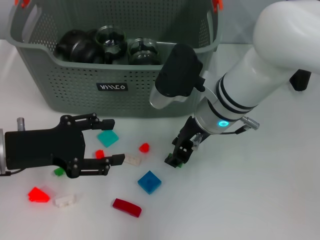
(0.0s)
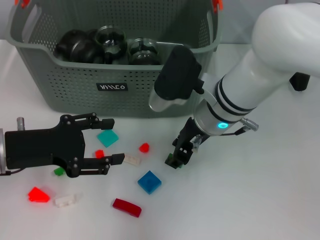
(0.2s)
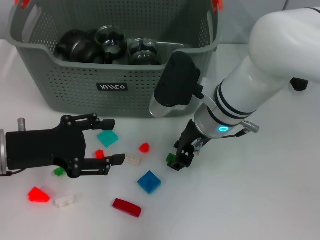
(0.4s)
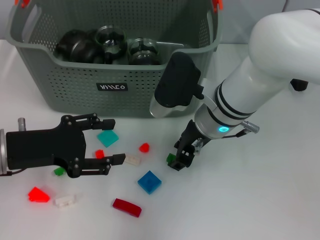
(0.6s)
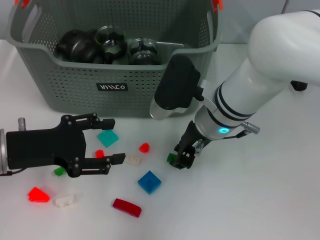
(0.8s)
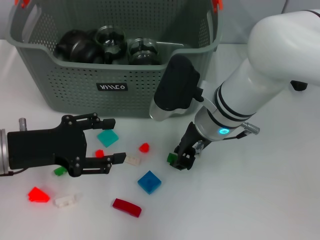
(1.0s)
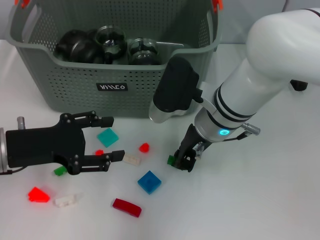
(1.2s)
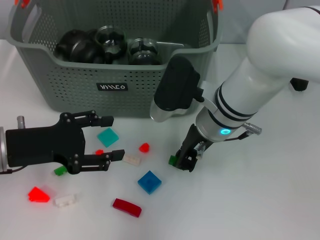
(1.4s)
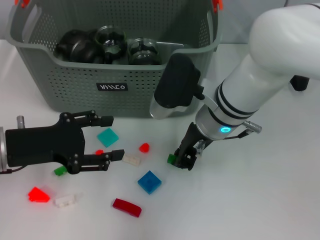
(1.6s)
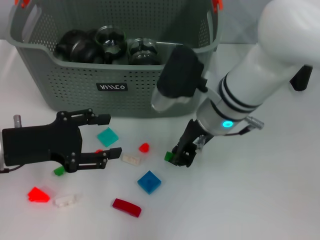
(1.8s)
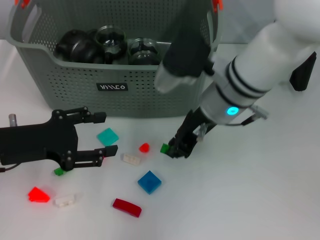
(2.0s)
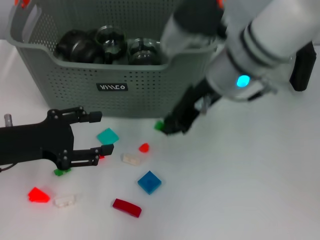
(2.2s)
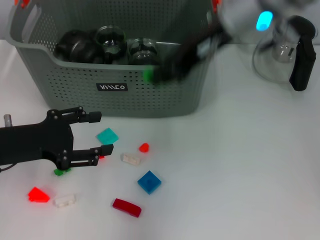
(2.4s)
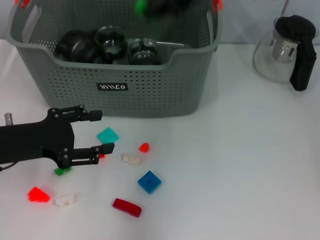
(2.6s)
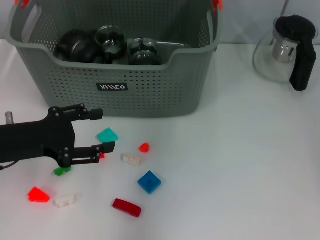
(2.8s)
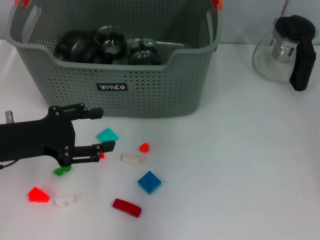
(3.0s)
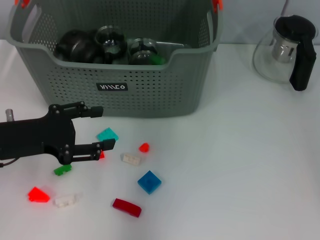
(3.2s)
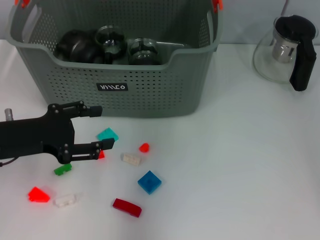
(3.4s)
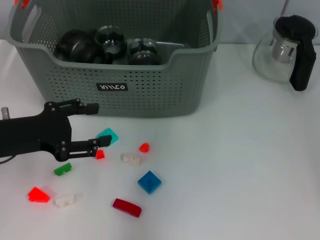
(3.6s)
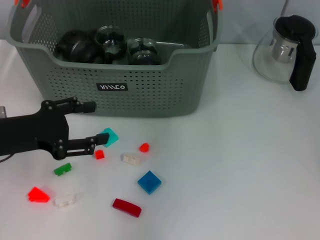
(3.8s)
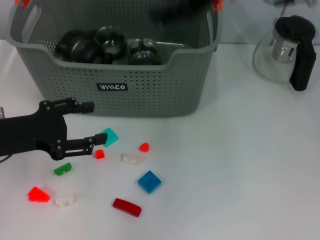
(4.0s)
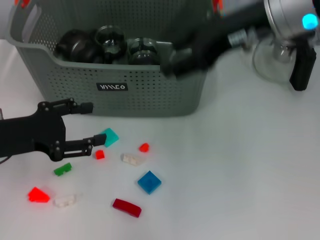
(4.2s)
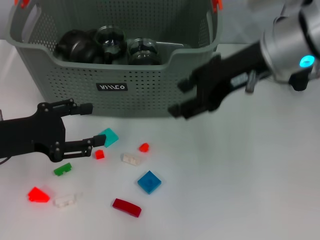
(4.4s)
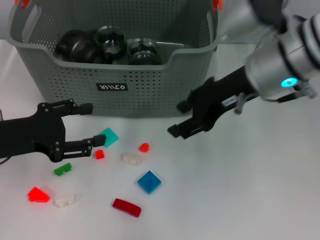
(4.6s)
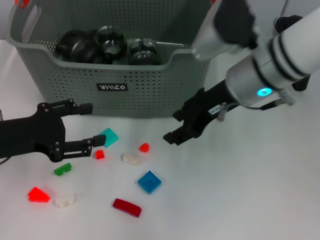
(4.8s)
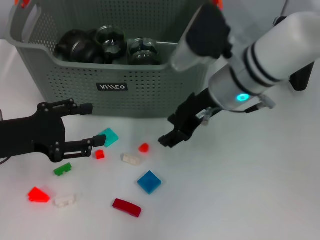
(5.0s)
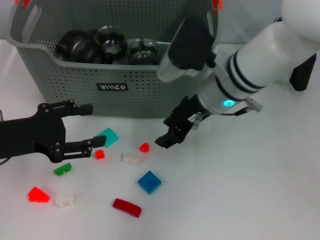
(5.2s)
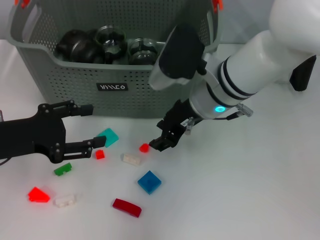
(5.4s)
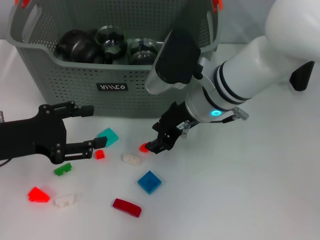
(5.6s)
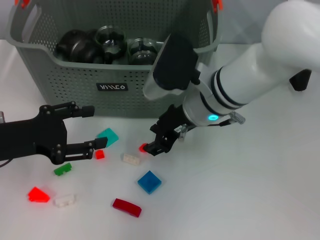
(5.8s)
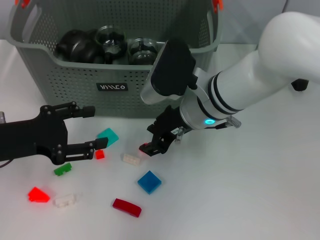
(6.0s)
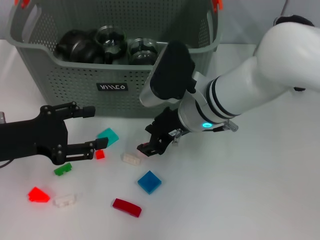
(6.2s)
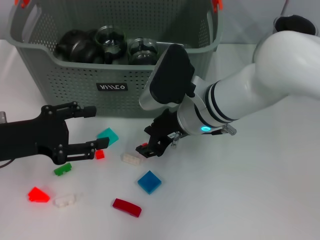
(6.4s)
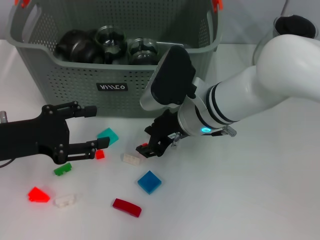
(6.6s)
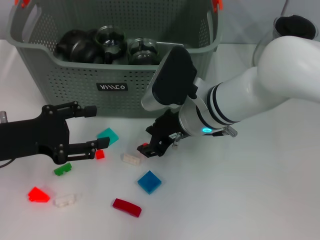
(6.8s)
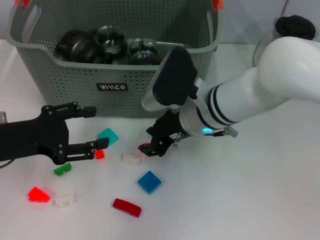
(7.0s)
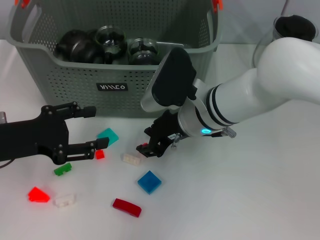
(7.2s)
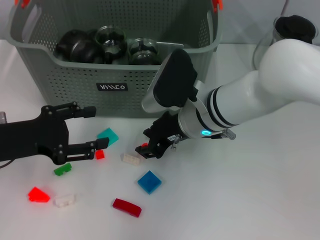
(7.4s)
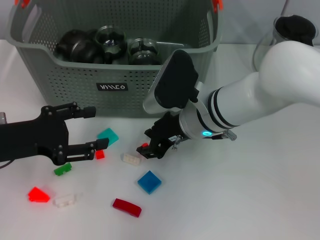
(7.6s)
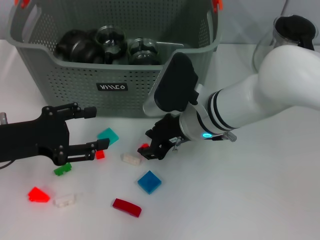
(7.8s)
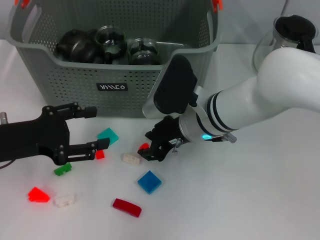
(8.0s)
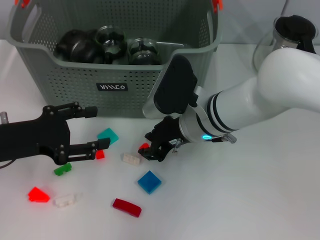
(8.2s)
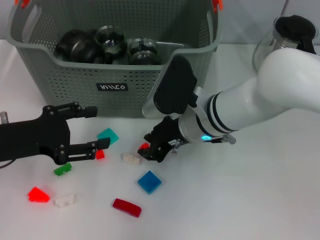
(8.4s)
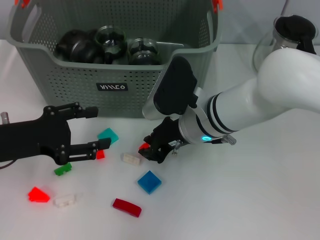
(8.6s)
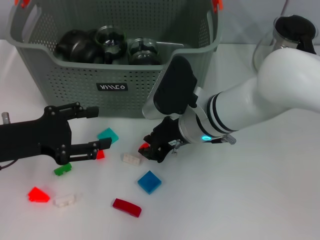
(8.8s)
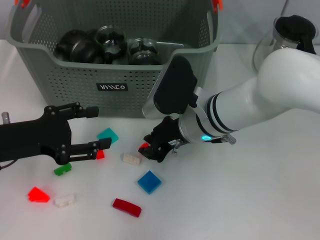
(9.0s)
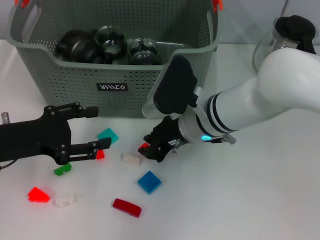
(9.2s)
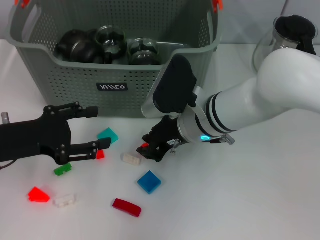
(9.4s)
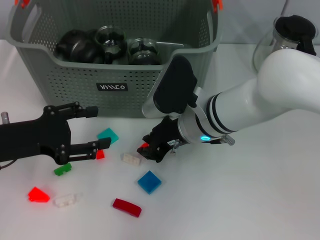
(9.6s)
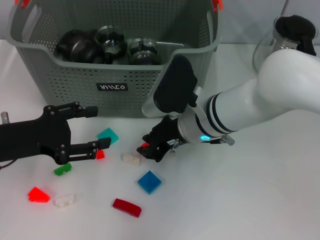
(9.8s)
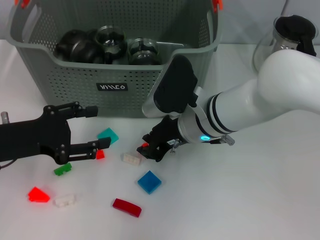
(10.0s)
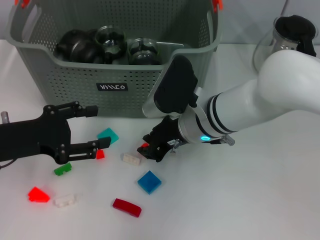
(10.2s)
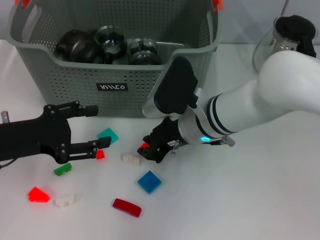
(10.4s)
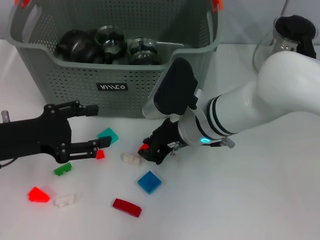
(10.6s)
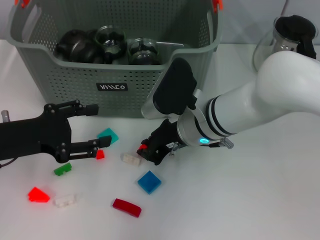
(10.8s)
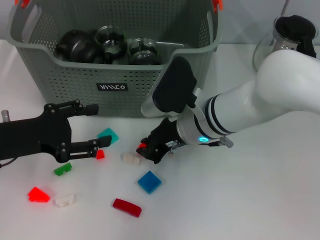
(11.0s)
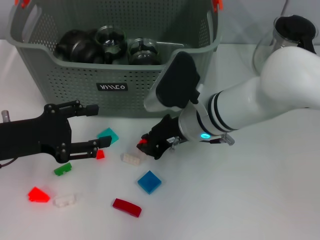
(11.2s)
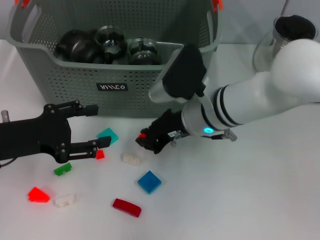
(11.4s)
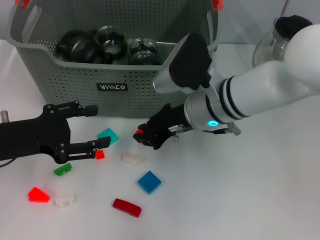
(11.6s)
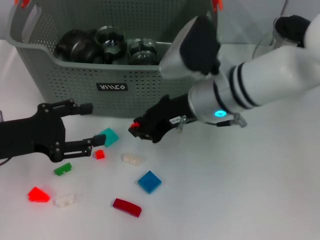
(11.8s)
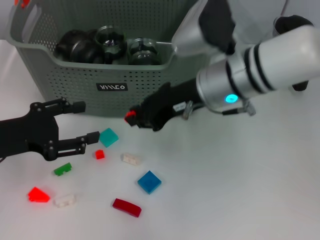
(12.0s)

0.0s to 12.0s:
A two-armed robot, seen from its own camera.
Task of the whole recording: pick up the teacup on the table and place it into the storage bin, pick up the block on the table and place it into the storage bin.
Step, 1.4s to 3.8s: Place the green block in the storage box with right gripper.
Step, 4.0s to 10.8s: Grasp the orange block with right gripper.
0.0s to 1.6s: The right gripper closes.
1.6s to 3.0s: The right gripper goes approximately 20 cm upward and forward.
3.0s to 4.4s: The right gripper travels backward and downward by roughly 10 cm, and opens its fingers.
4.4s to 6.0s: The right gripper shifts roughly 15 cm downward and to the left.
6.0s to 7.6s: The grippers stay close to where they were, moving slightly.
7.6s to 10.4s: The two grippers keep their place.
10.4s to 12.0s: The right gripper goes approximately 10 cm upward.

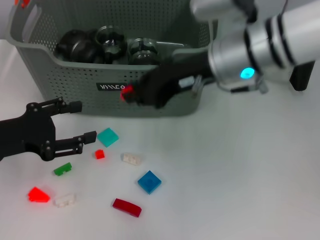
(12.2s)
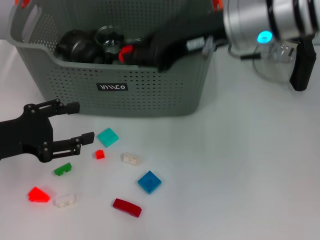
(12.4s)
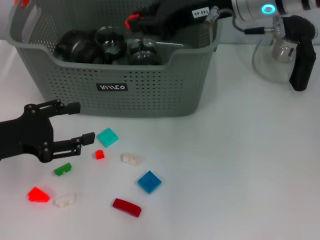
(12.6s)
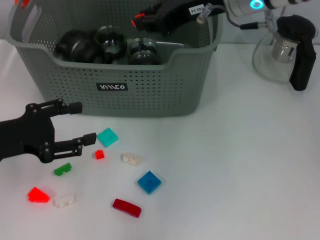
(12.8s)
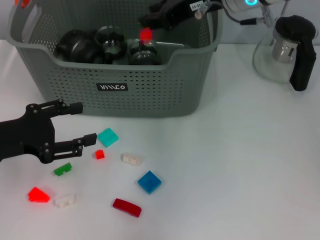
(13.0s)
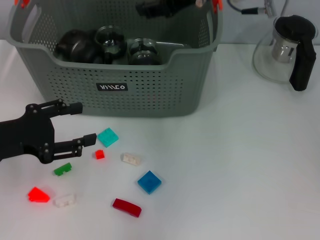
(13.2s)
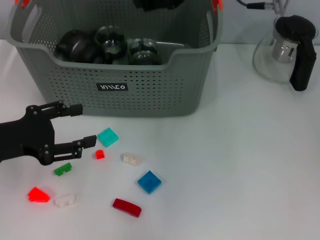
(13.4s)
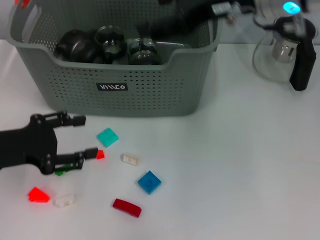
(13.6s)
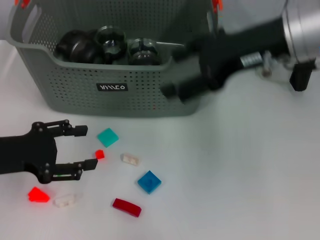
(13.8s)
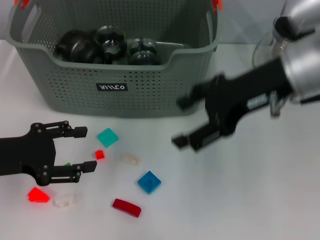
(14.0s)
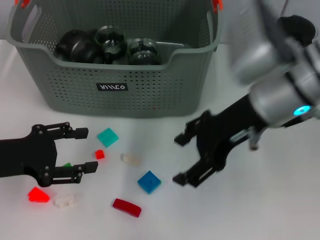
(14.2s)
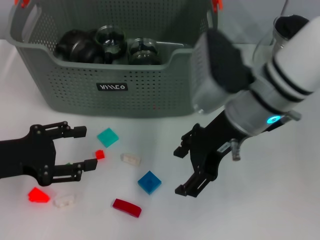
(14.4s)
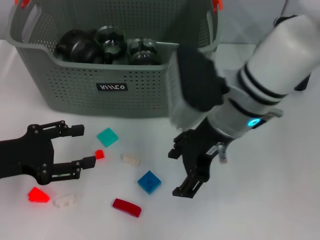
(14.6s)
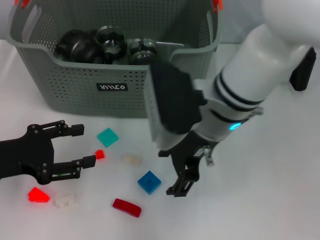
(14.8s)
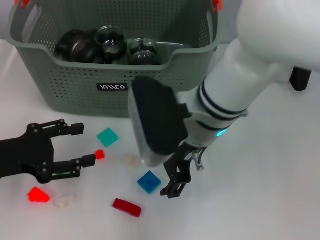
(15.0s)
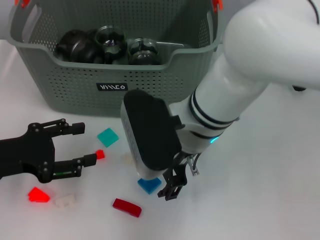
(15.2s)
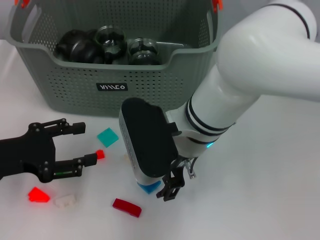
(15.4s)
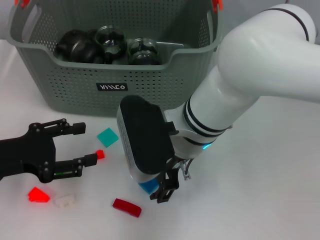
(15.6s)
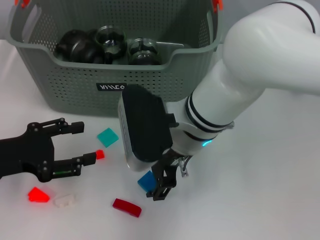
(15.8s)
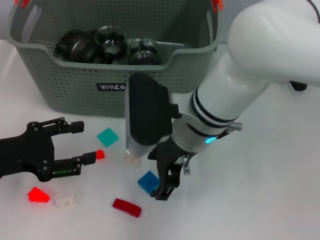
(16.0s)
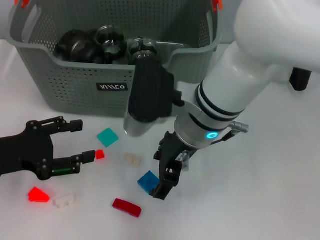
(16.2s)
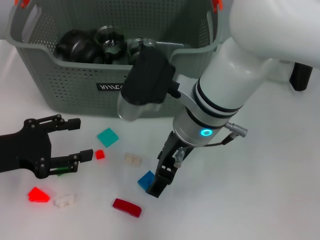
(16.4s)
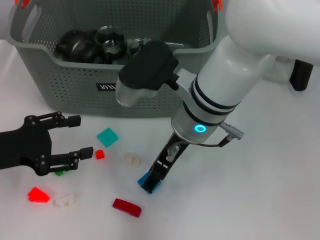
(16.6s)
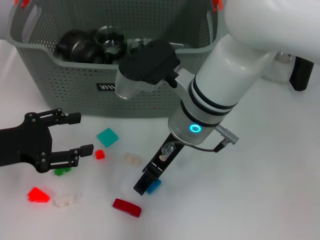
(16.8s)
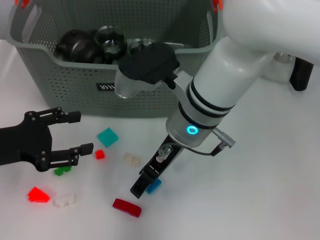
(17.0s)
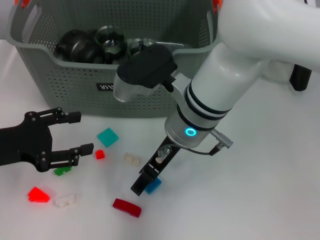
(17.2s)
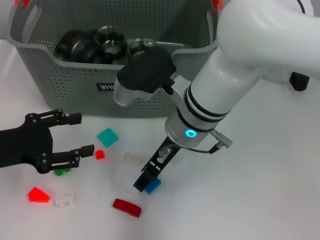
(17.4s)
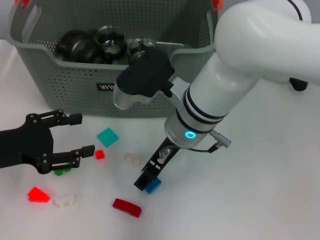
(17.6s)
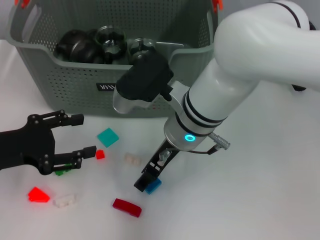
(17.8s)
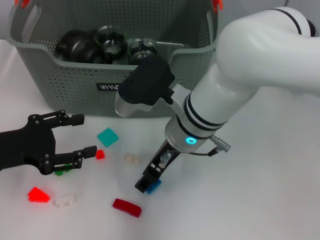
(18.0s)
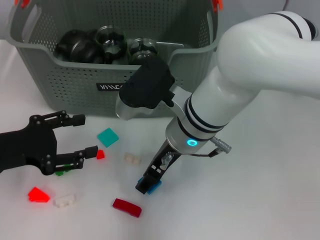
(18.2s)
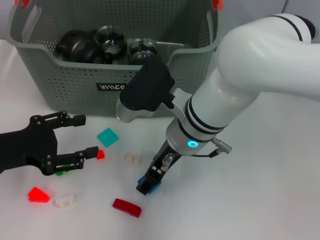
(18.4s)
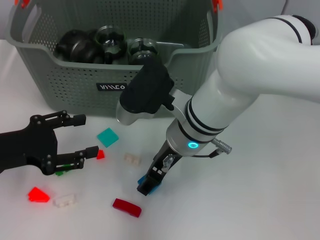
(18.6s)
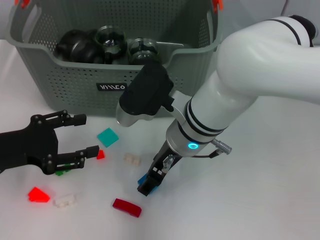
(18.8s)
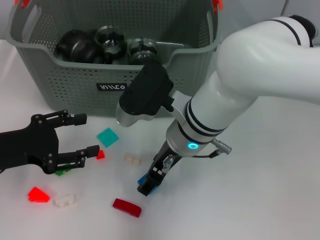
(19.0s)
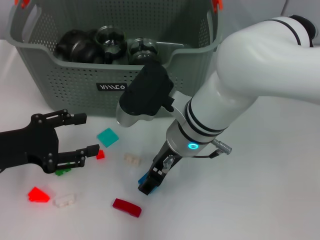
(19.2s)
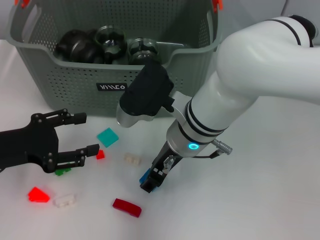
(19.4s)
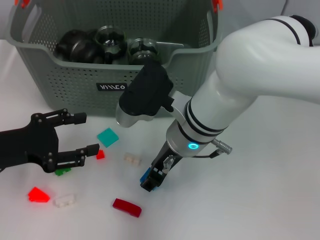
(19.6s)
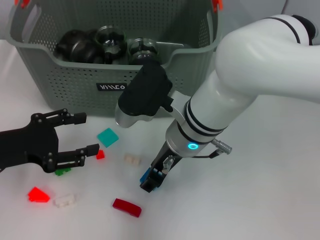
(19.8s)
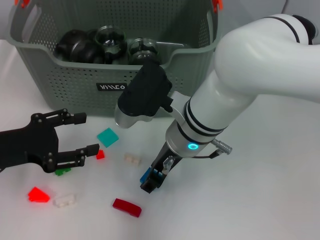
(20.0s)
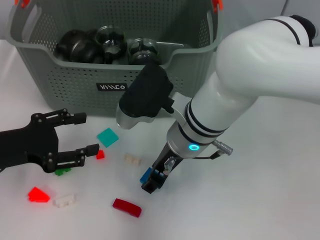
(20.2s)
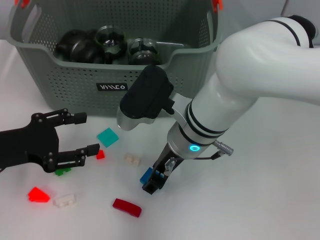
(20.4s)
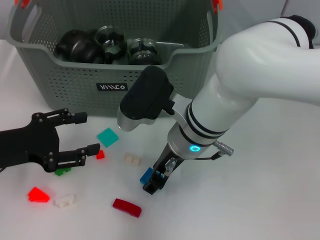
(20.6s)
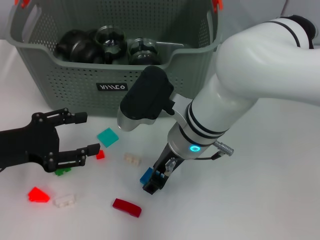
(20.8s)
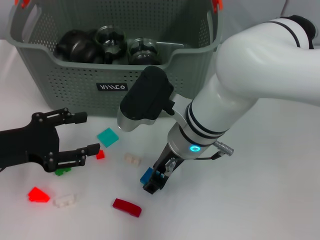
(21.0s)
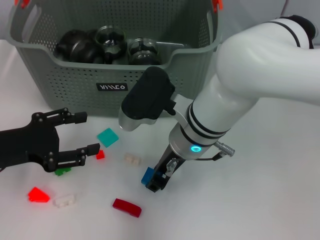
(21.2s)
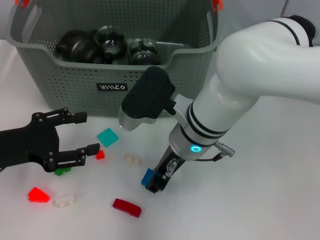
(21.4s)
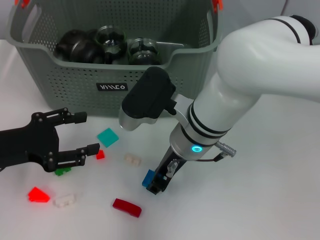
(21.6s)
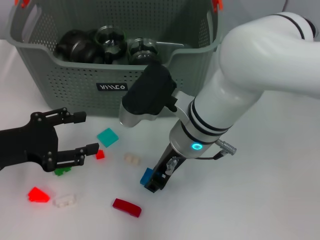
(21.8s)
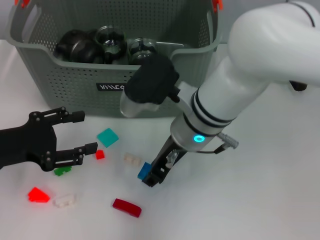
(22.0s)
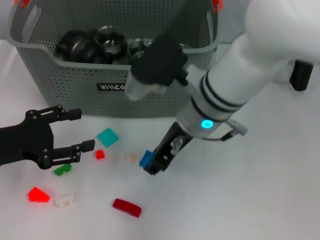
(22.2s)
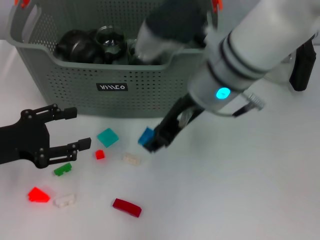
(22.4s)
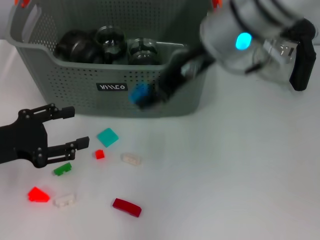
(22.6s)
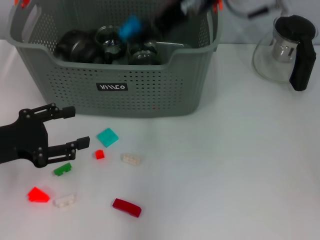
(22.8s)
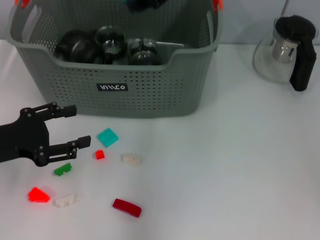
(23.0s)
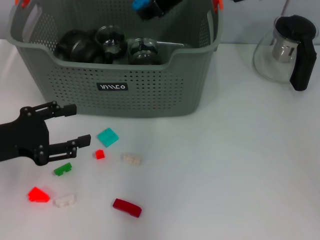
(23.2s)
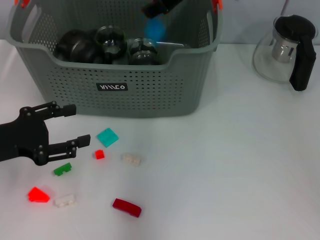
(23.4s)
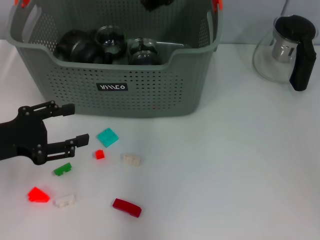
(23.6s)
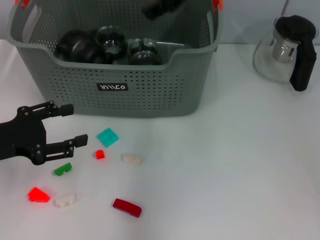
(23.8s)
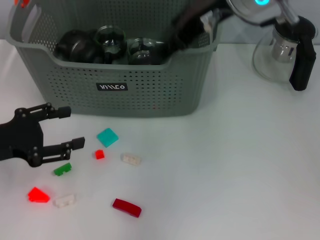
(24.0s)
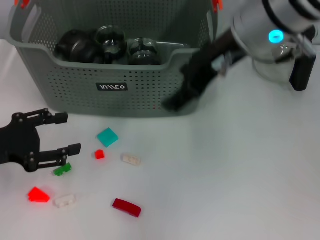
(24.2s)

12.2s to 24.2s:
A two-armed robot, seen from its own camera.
Task of the whole recording: pick up the teacup on the table and place it into the storage bin, pick up the block on the table and place it into the storage bin.
Step, 12.2s to 13.4s: Place the orange block in the storage box with right gripper.
Step, 13.6s to 21.4s: Grasp the dark blue block with right gripper.
Step, 21.6s to 23.8s: Place the dark blue block in the storage box with right gripper.
12.2s to 13.8s: The right gripper shifts roughly 5 cm to the right, and opens up.
13.8s to 15.2s: The right gripper moves to the left and downward, about 15 cm.
16.6s to 18.2s: The grippers move only a little.
18.2s to 21.2s: Both grippers stay about where they are.
21.2s to 22.6s: The right gripper is displaced upward by roughly 15 cm.
22.6s to 24.2s: The right gripper goes forward and returns, roughly 10 cm each way, and opens its fingers.
